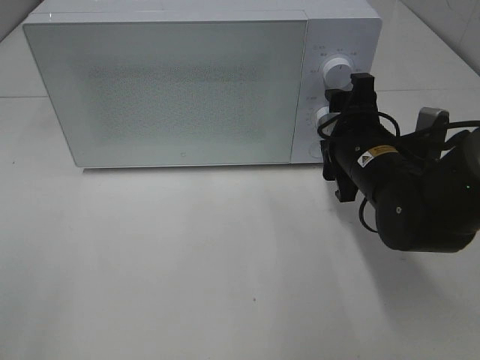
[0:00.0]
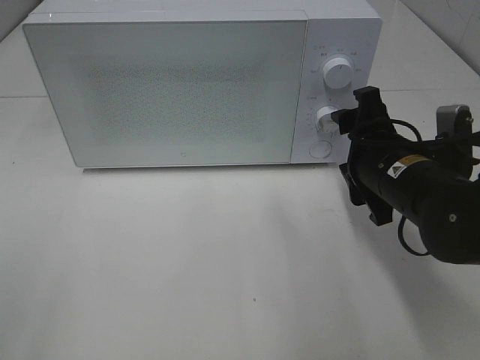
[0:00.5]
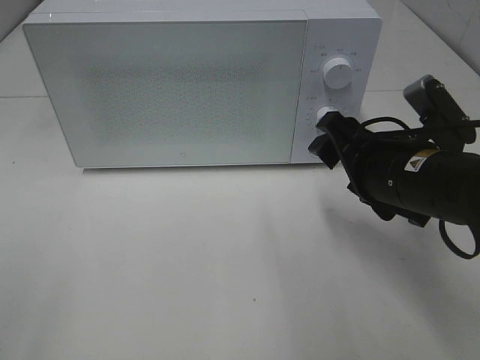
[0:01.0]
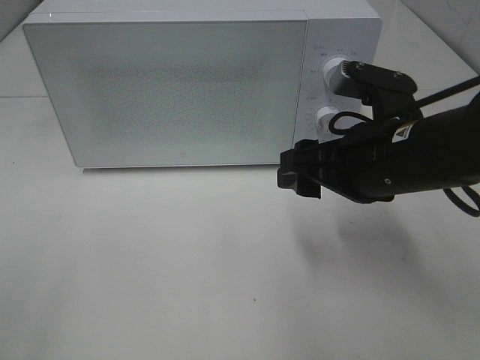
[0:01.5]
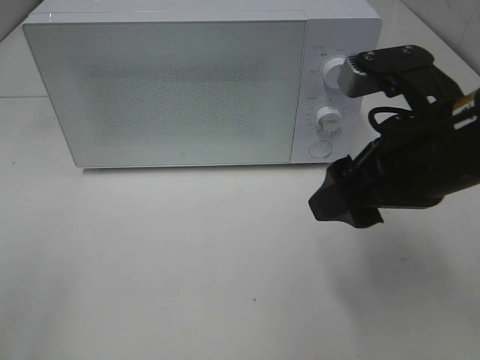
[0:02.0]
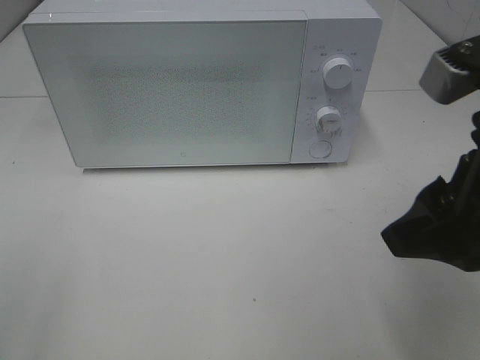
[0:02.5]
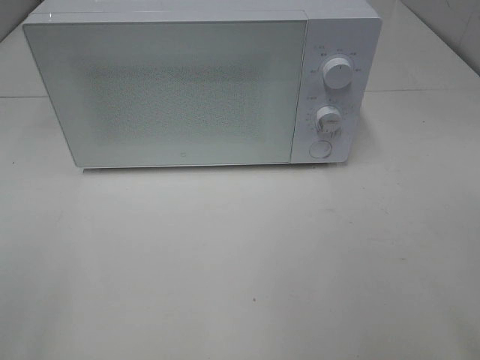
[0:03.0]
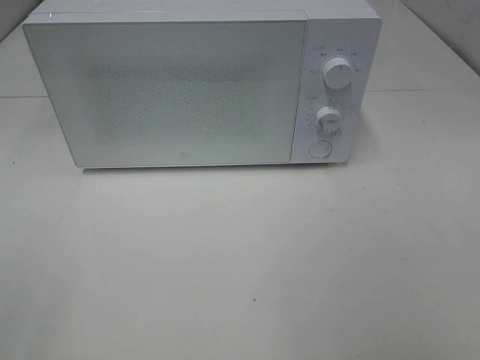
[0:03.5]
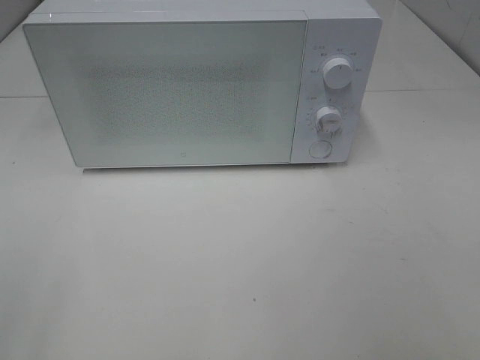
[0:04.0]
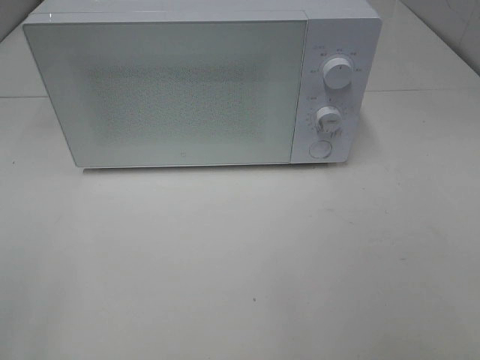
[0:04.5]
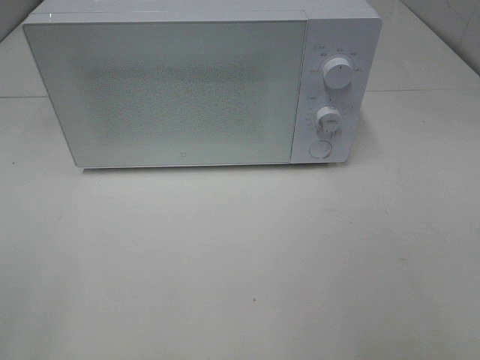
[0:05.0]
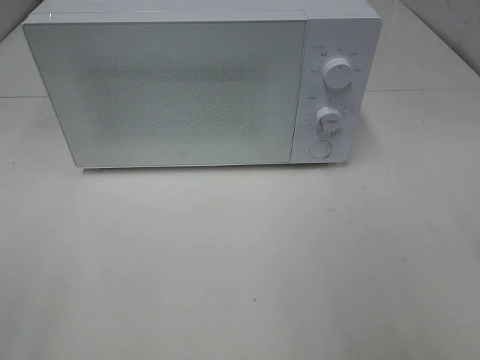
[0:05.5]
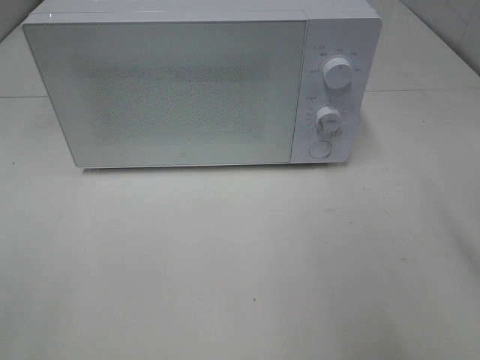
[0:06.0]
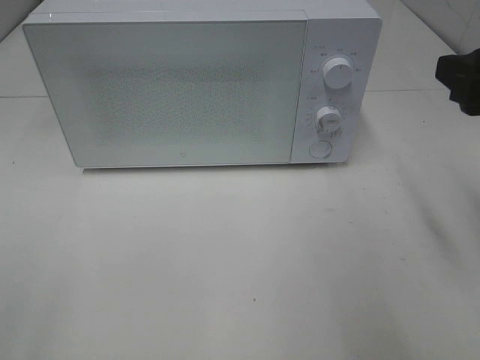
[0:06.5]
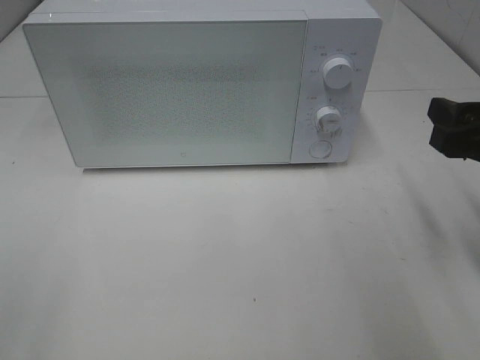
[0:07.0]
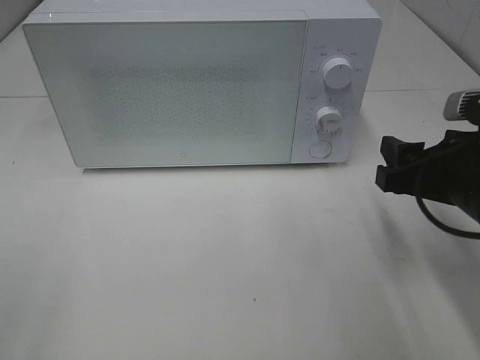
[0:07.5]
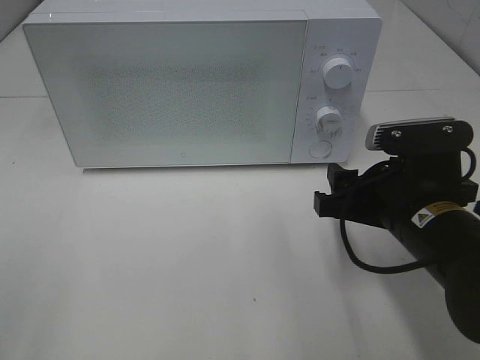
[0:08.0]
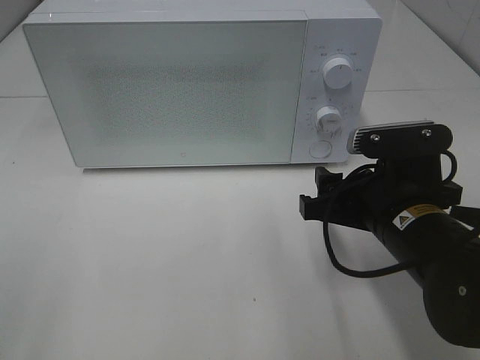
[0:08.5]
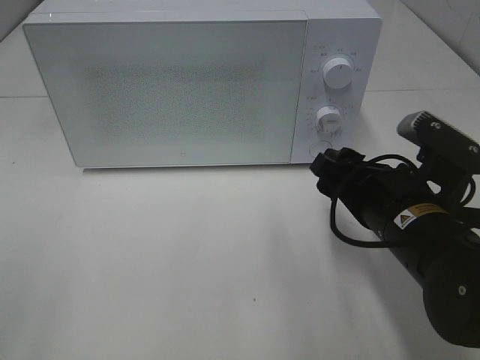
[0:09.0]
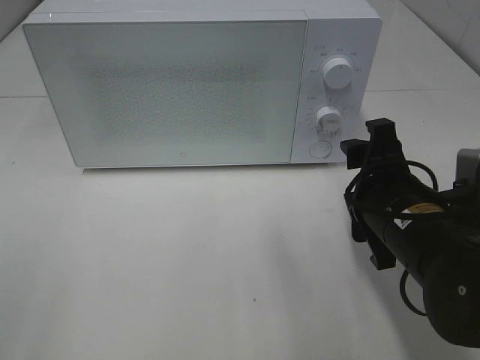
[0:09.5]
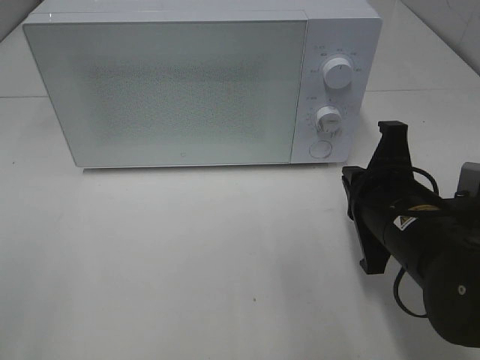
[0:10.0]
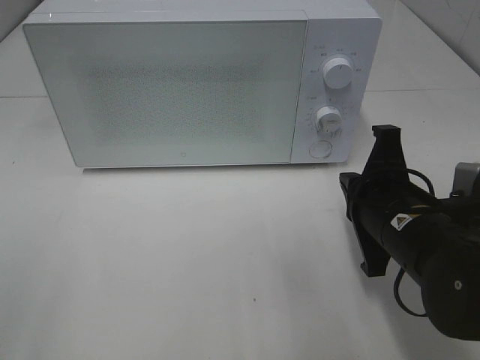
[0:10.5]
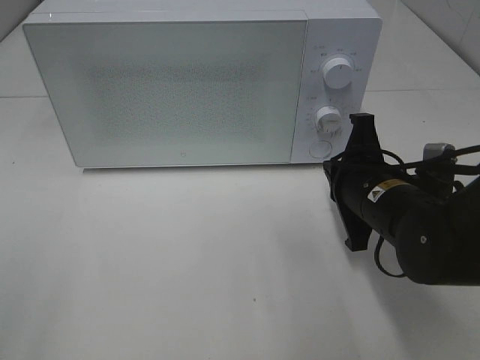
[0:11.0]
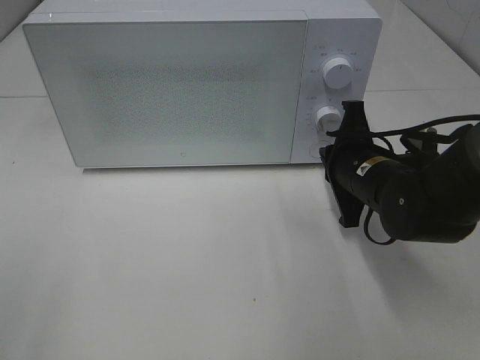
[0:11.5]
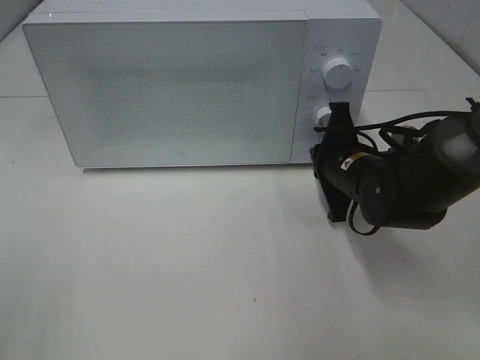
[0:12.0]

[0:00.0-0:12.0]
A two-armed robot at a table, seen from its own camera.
Task of the whole recording: Heat Sandwich.
0:00.0 to 0:02.0: The right gripper is displaced upward and backward by some 15 cm.
0:02.0 to 0:04.0: The right gripper is displaced backward and to the right by about 25 cm.
0:06.0 to 0:08.0: The right gripper shifts about 20 cm downward and to the left.
0:08.0 to 0:10.0: The right gripper closes up.
0:10.0 to 0:12.0: The right gripper heads forward, covering about 10 cm.

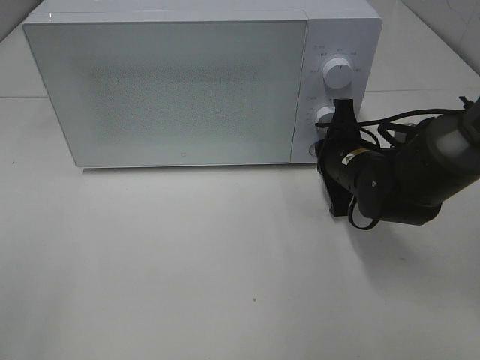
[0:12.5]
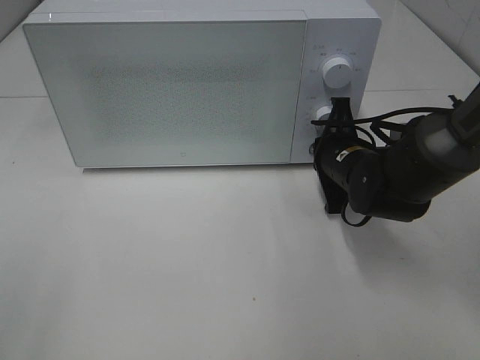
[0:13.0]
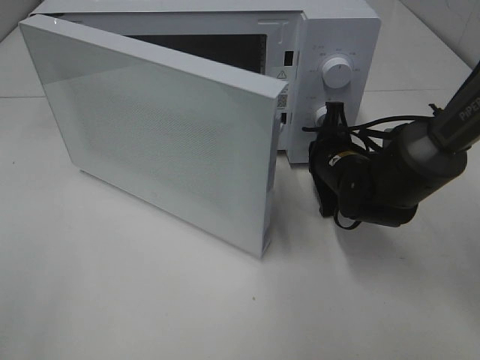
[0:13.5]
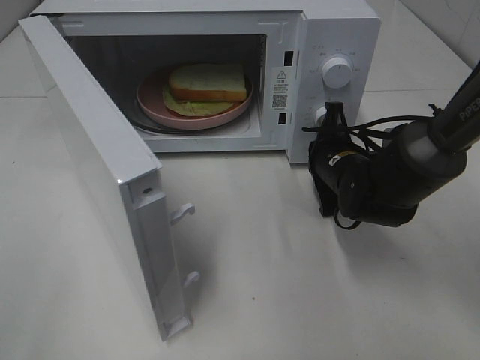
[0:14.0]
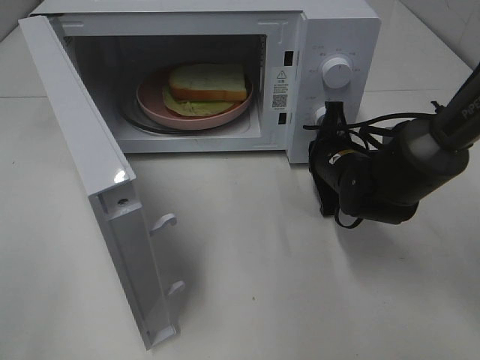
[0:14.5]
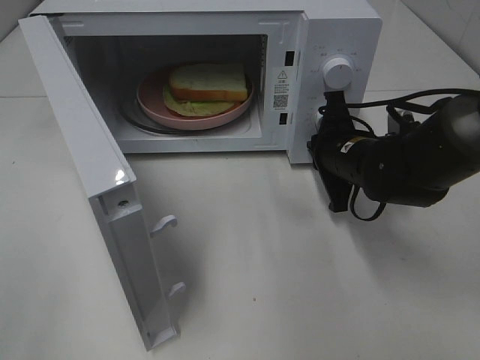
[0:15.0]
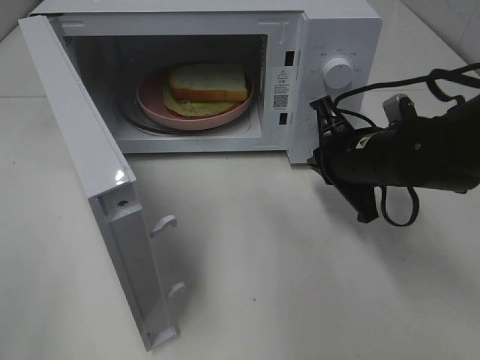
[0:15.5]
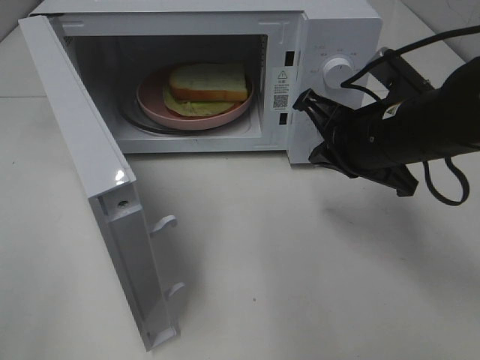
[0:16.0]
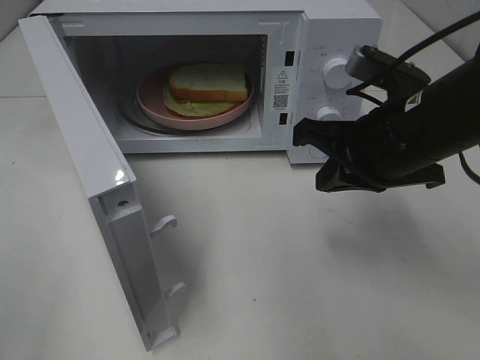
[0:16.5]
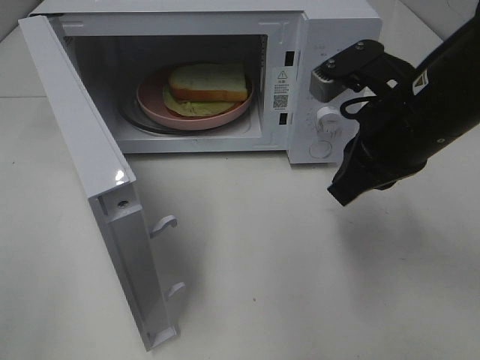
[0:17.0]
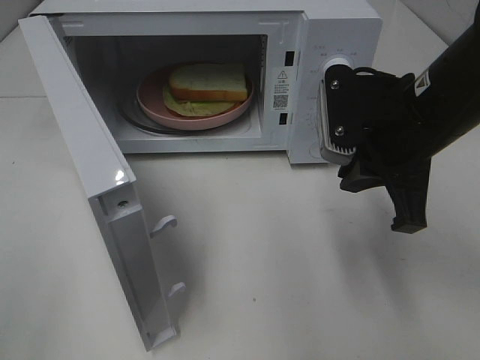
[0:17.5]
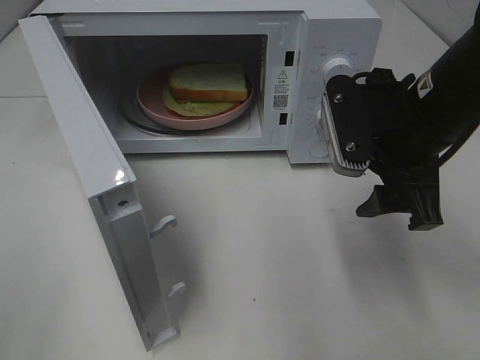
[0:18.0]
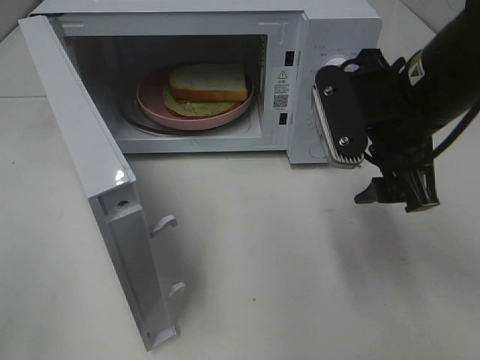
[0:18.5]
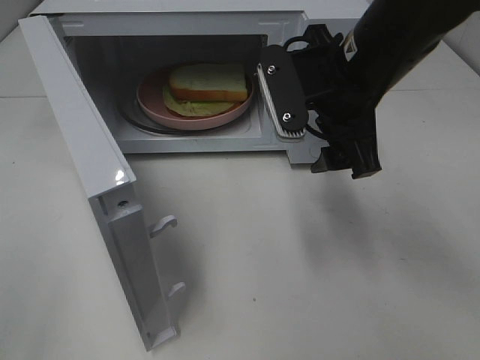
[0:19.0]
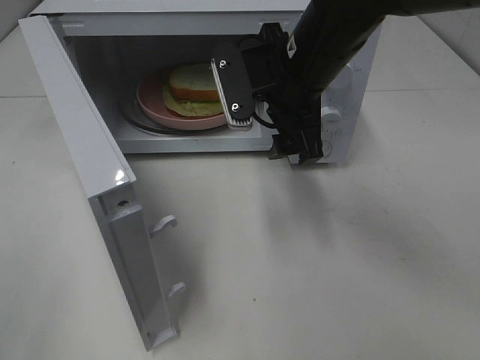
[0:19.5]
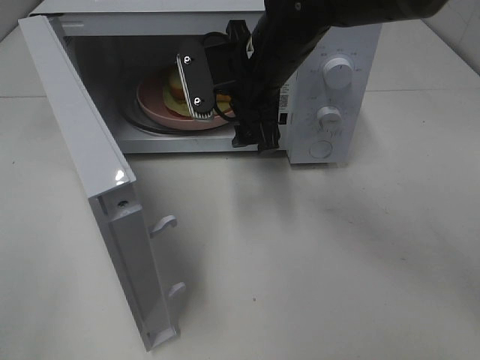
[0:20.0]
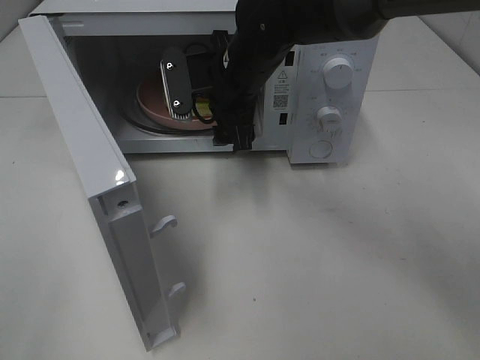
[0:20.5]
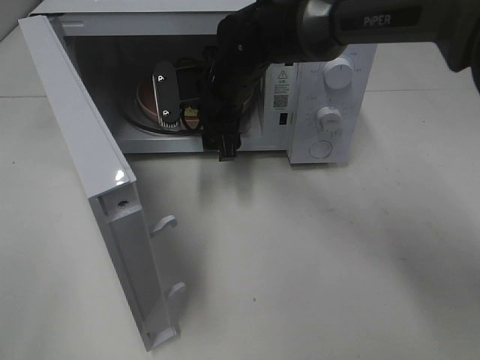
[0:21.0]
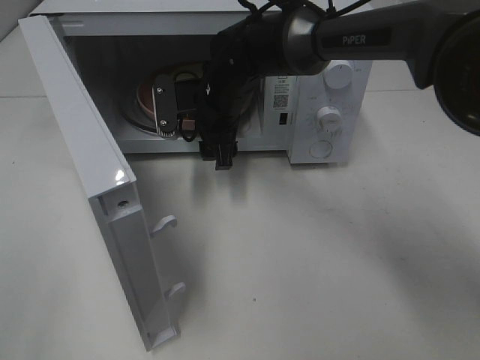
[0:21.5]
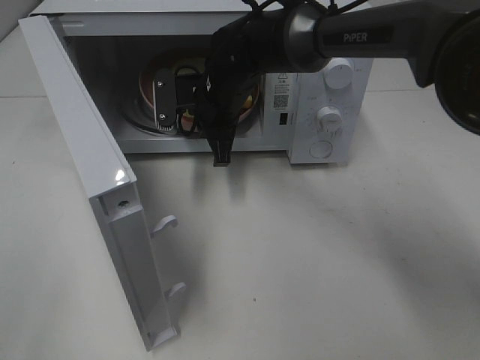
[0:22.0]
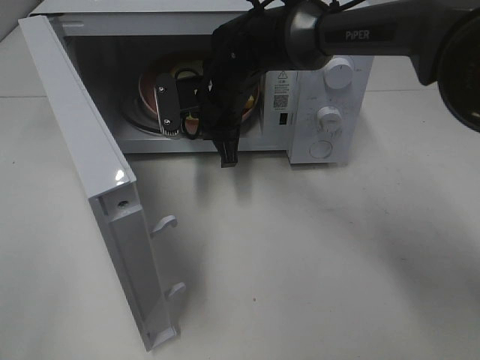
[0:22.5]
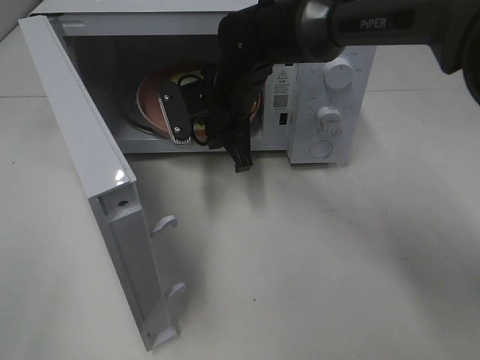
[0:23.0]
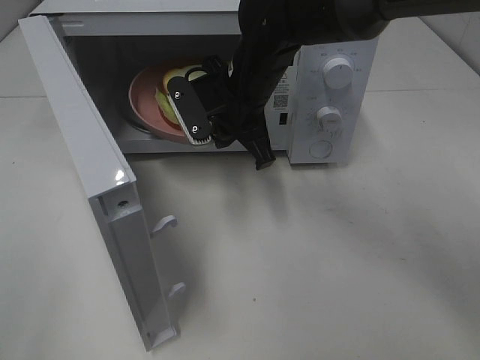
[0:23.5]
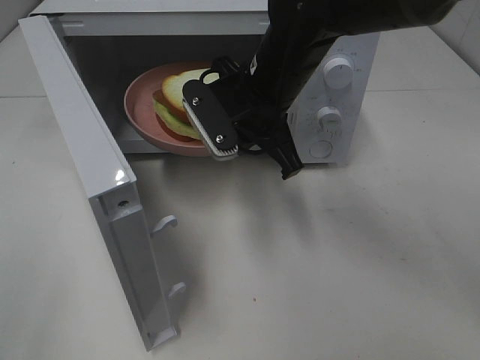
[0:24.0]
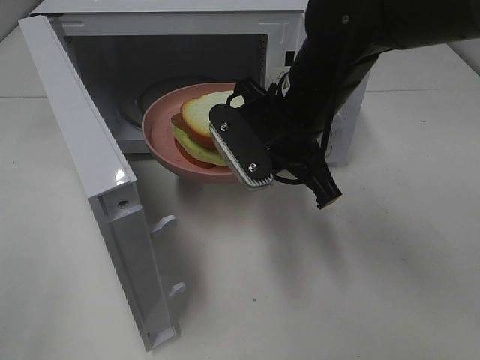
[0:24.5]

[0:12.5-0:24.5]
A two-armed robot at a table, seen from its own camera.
Task of the whole recording: Heat Sandwich.
Step, 0:12.5 to 0:15.0: Right hand: press the switch.
Step, 0:15.5 to 0:21.5: Right hand: grab the plate with the sandwich.
0:14.5 to 0:16.5: The right gripper moves upward and backward, about 15 cm.
0:16.5 to 0:18.5: The right gripper opens up.
0:18.5 to 0:20.5: The right gripper heads to the left and forward, covering some 20 cm.
0:20.5 to 0:22.5: The right gripper shifts by roughly 5 cm, and closes up.
0:22.5 to 0:24.5: The right gripper goes roughly 15 cm backward, to the right and upward.

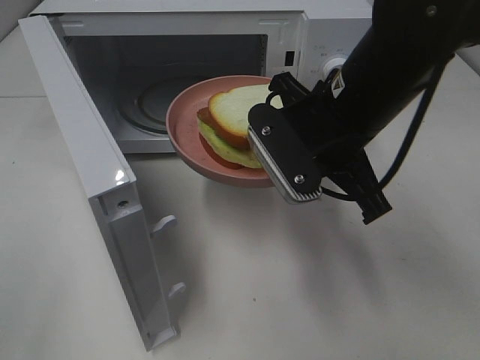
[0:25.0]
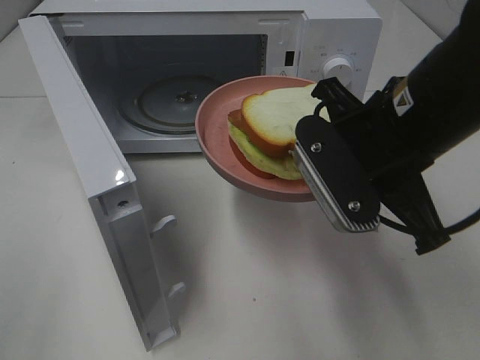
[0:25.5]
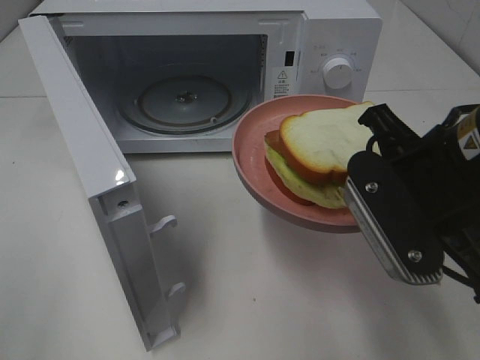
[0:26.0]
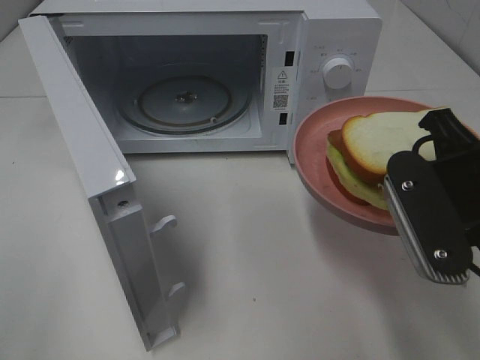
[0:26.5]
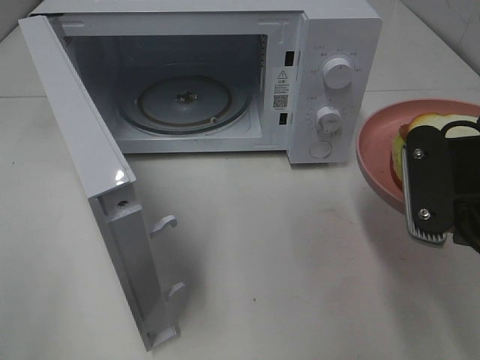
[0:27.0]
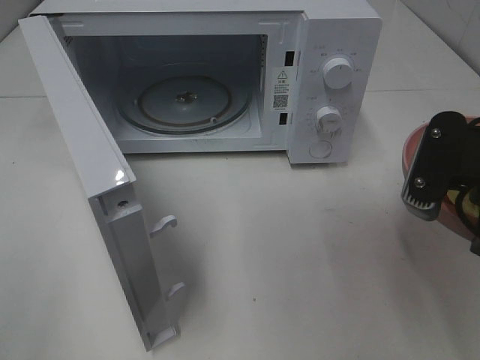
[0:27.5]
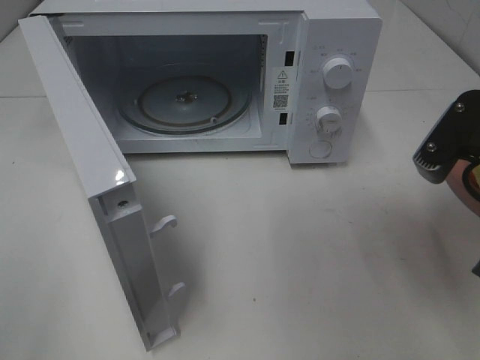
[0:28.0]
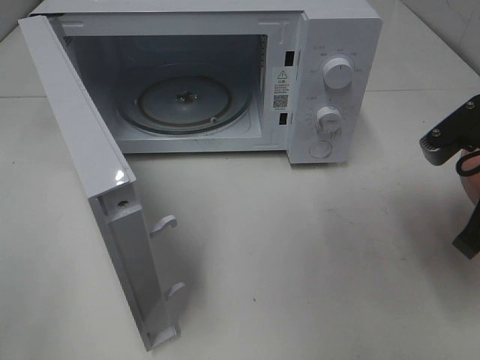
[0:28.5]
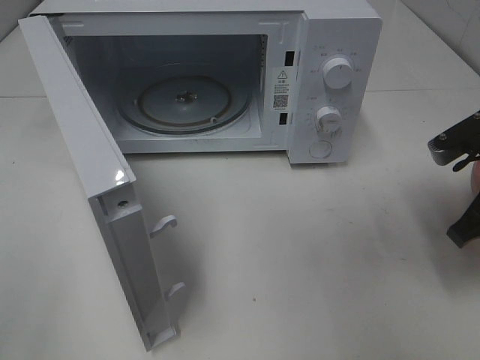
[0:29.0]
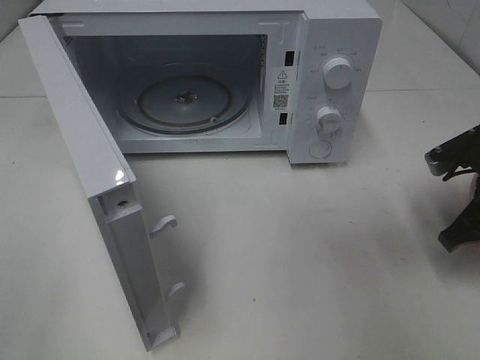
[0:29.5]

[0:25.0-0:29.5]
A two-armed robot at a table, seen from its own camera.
Task of the whole recording: Heat Sandwich.
0:25.0 to 0:27.0: The right gripper travels to the right and backward by about 15 cm.
0:27.0 to 0:29.5: The right gripper goes some 15 cm downward, forward and to the right.
